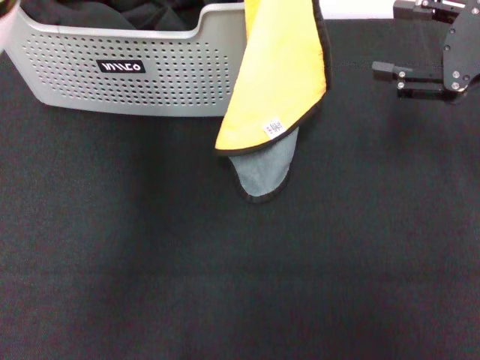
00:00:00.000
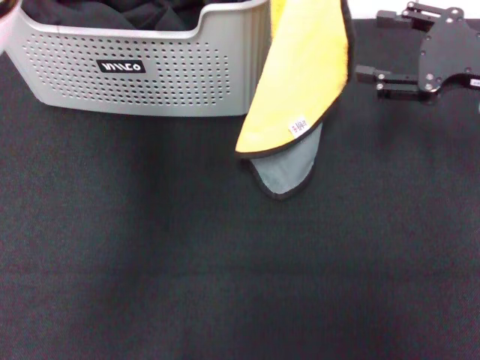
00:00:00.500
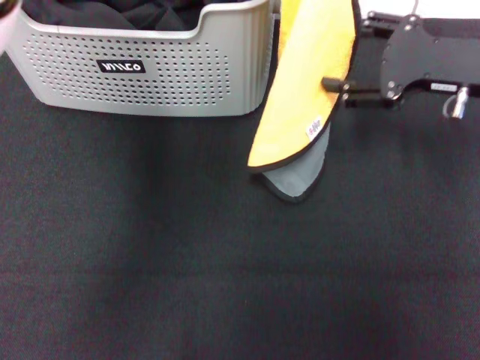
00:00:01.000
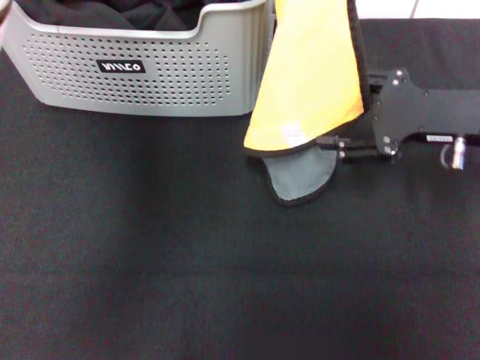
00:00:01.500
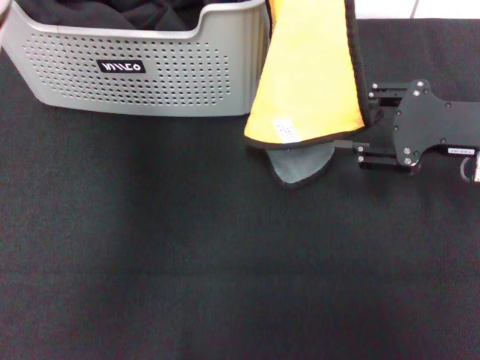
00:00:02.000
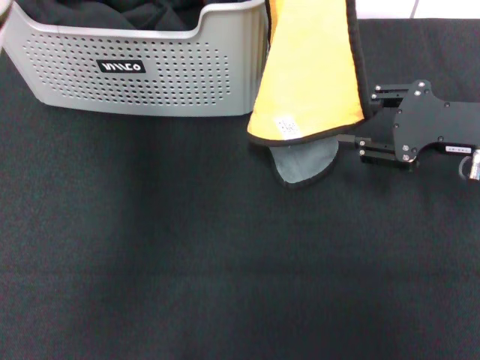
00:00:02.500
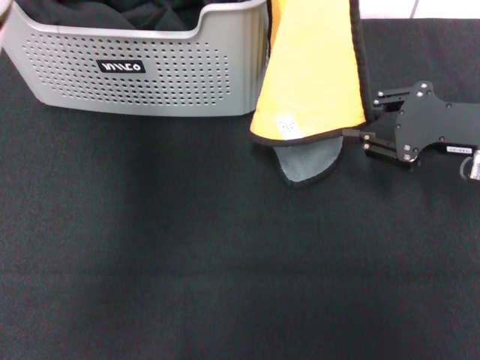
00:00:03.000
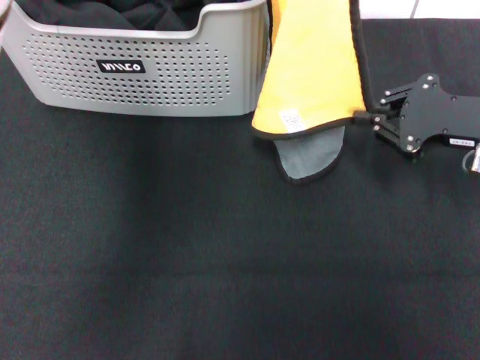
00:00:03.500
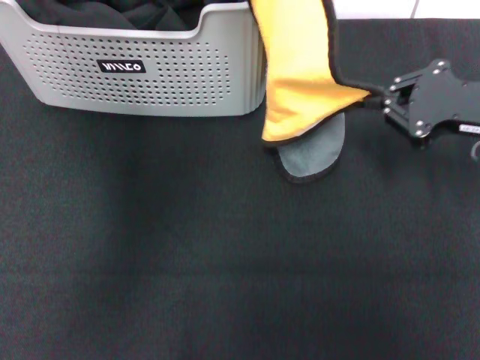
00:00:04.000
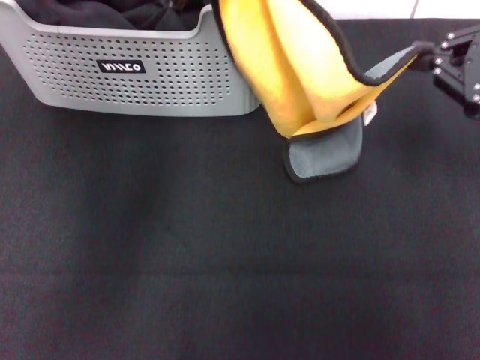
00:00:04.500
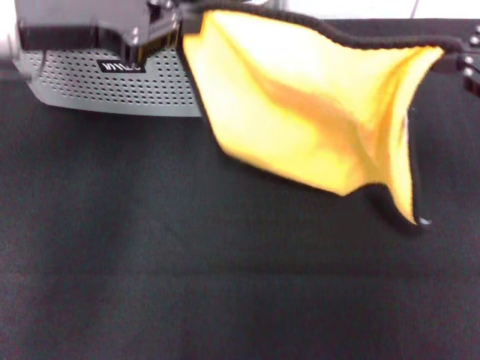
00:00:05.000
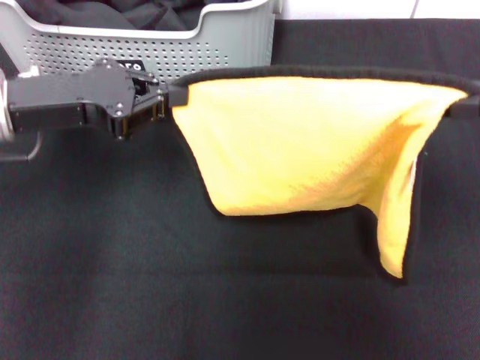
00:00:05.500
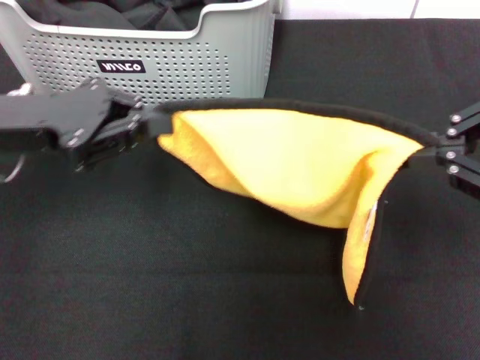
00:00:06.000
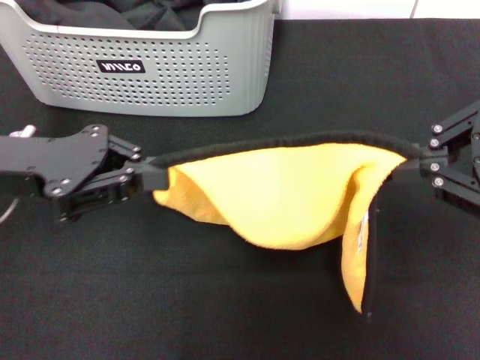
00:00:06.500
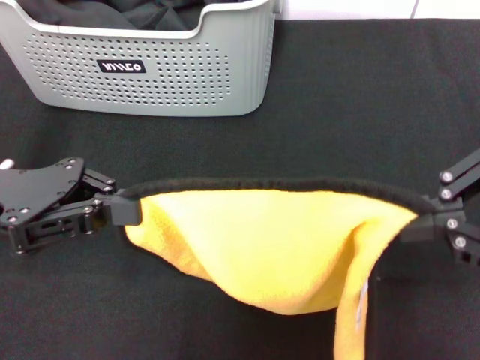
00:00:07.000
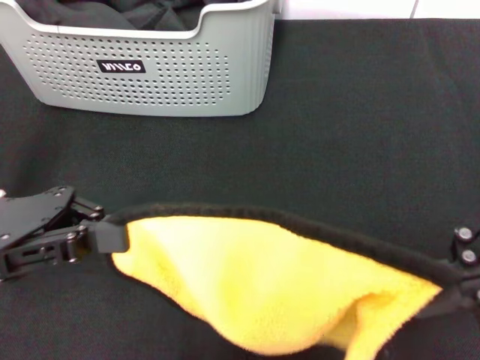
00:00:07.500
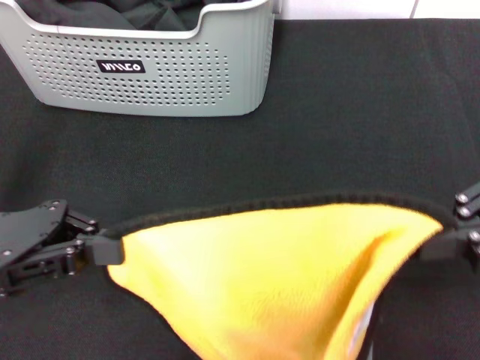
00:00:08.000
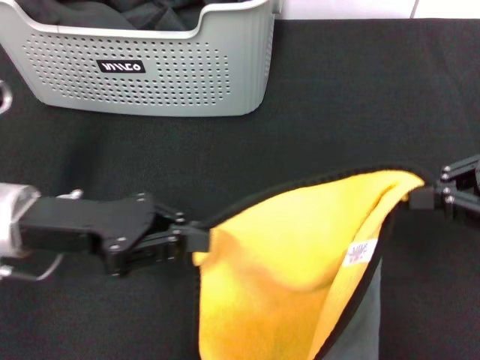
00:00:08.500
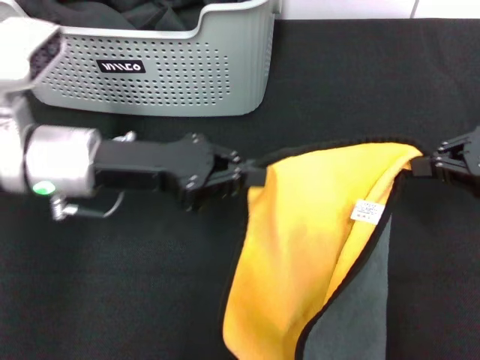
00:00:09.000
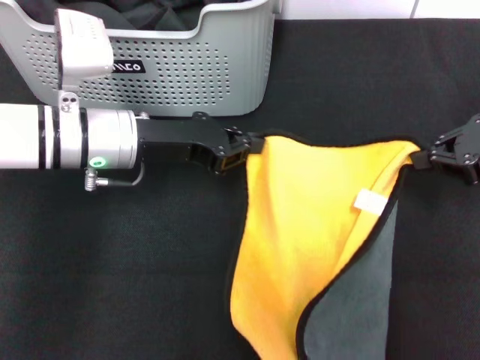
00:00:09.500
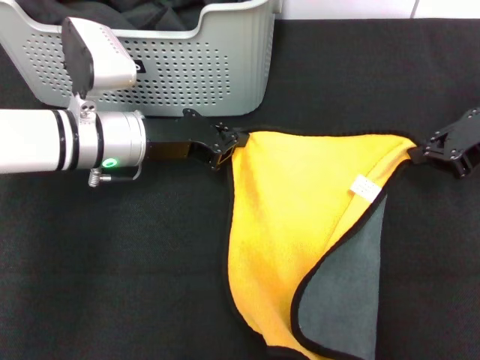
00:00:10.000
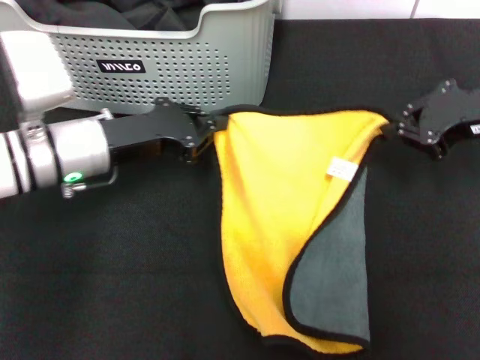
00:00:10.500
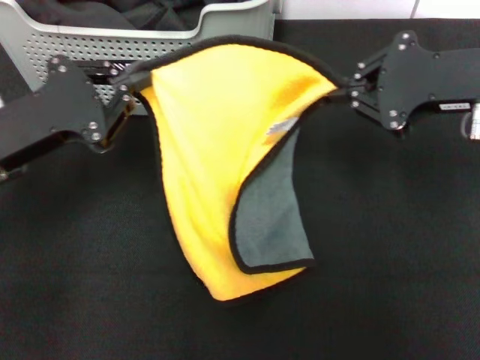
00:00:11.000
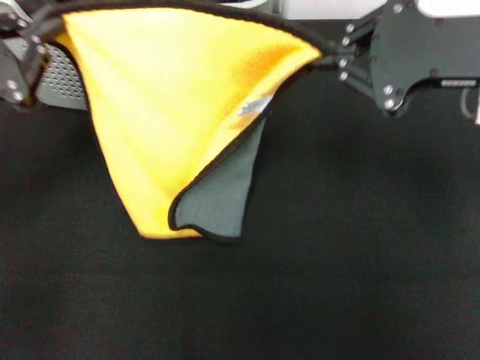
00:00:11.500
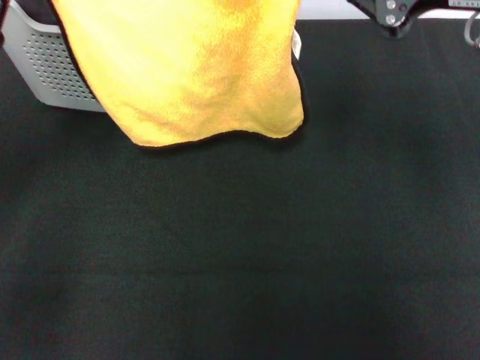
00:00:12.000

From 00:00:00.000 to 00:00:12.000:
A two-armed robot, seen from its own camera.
Task of the whole recording: pick up the towel from the storage box and lay it flat on the black tablecloth.
Step, from 00:00:00.000 to 00:00:03.500: Spread the towel flat with the left gripper.
From 00:00:00.000 to 00:00:02.000: The right gripper moves downward, some 5 cm.
From 00:00:02.000 to 00:00:04.000: The right gripper closes up.
From 00:00:04.000 to 00:00:06.000: The left gripper shifts roughly 25 cm downward, to the left and backward. The right gripper is displaced upward and backward by roughly 15 cm.
From 00:00:06.000 to 00:00:08.000: The left gripper moves backward, some 5 cm.
From 00:00:08.000 to 00:00:10.000: The left gripper heads forward, to the right and downward, covering approximately 20 cm, while the right gripper is displaced forward and downward by roughly 15 cm.
From 00:00:10.000 to 00:00:12.000: The right gripper goes some 15 cm upward and to the left; the left gripper moves to the left, upward and backward, roughly 20 cm.

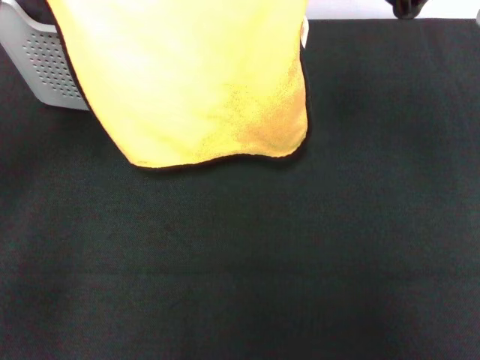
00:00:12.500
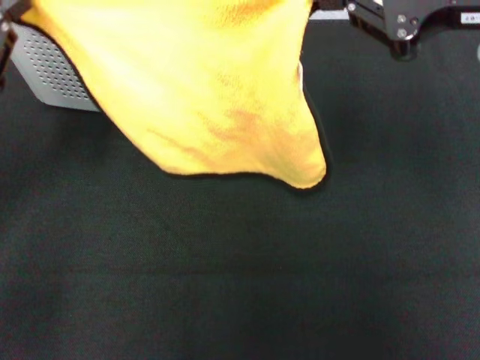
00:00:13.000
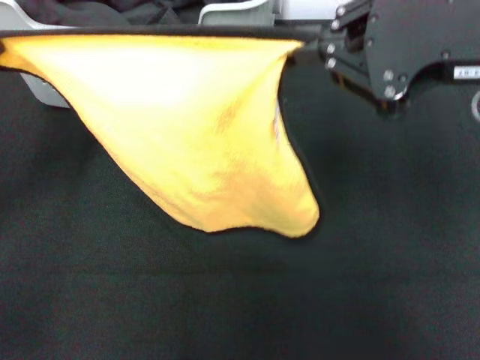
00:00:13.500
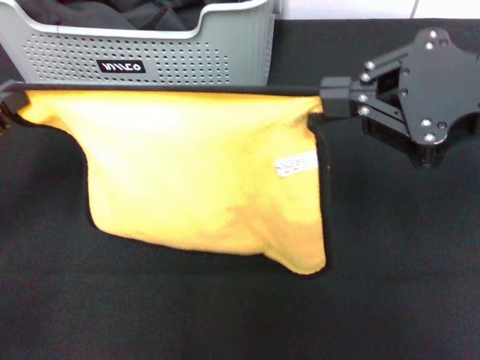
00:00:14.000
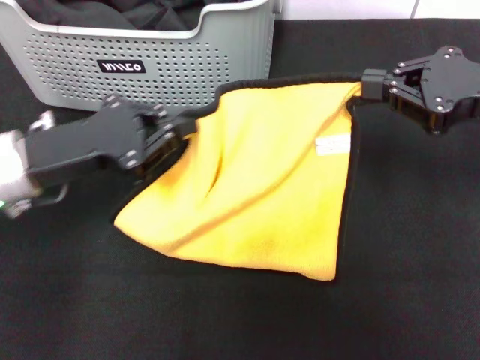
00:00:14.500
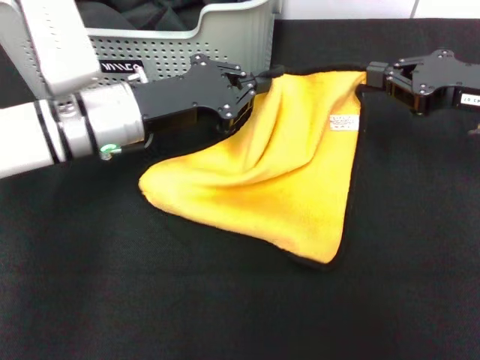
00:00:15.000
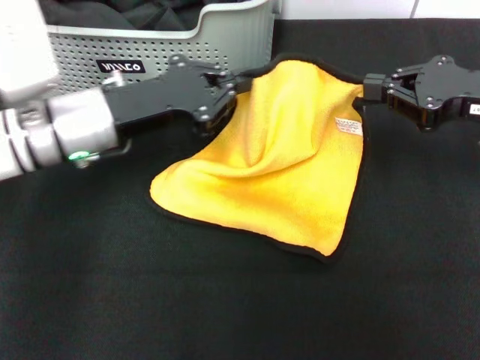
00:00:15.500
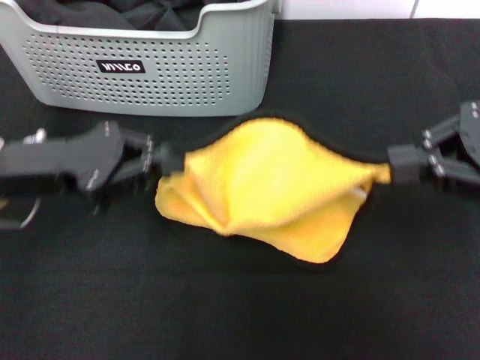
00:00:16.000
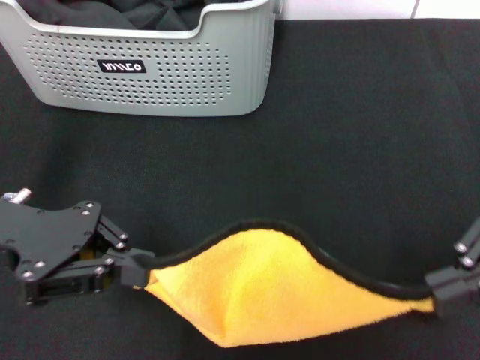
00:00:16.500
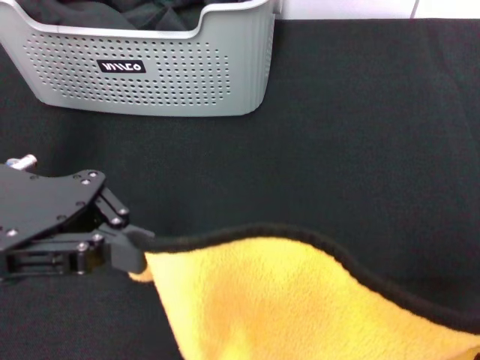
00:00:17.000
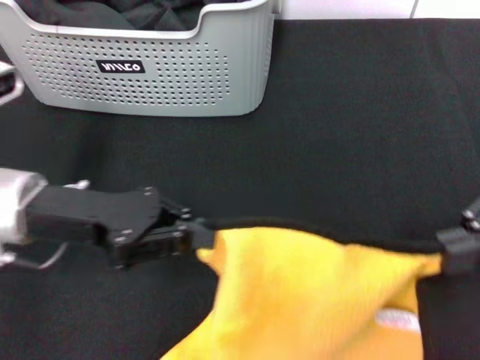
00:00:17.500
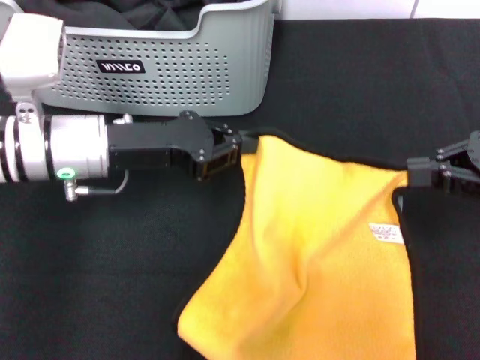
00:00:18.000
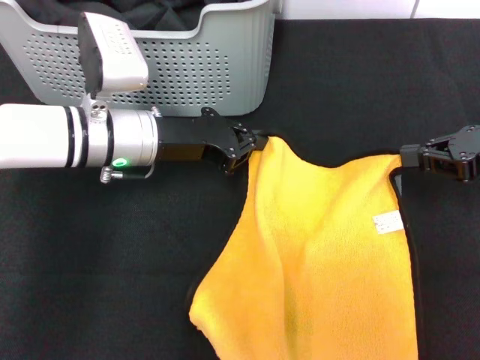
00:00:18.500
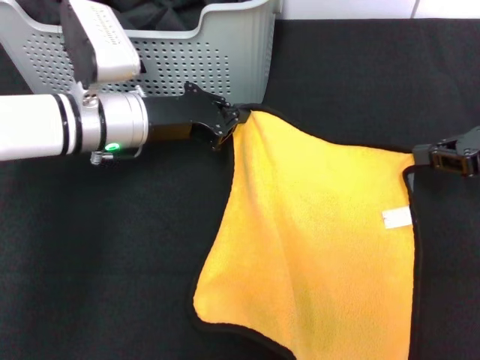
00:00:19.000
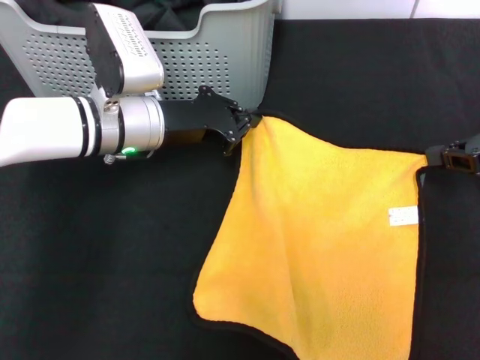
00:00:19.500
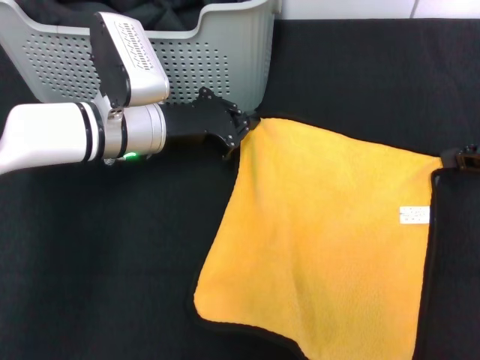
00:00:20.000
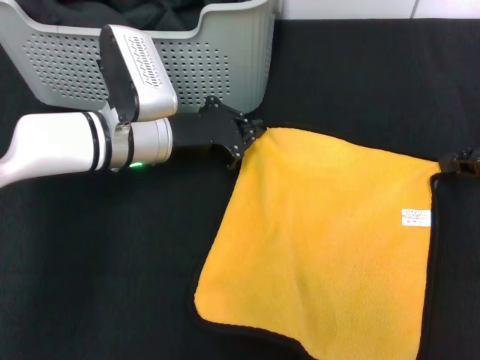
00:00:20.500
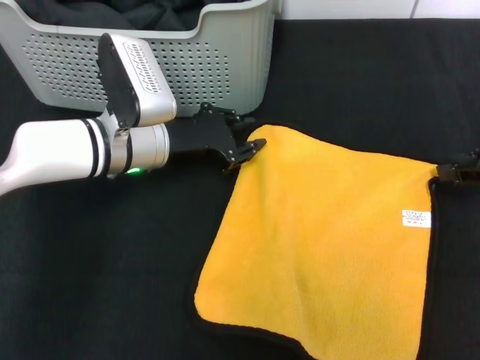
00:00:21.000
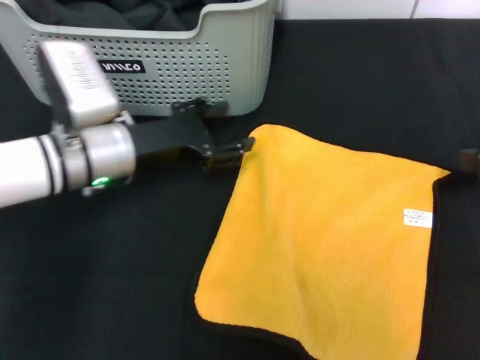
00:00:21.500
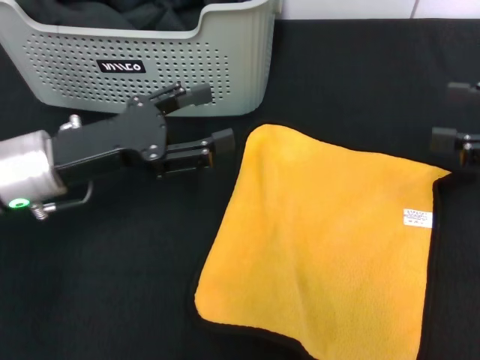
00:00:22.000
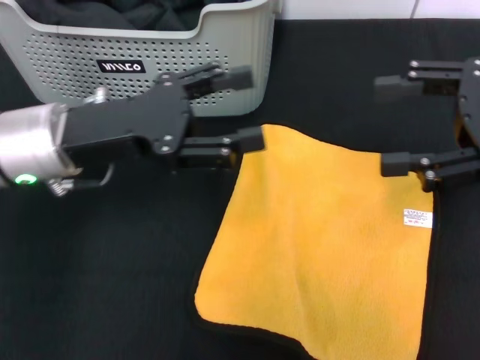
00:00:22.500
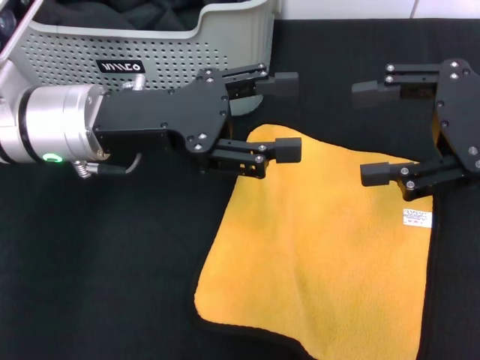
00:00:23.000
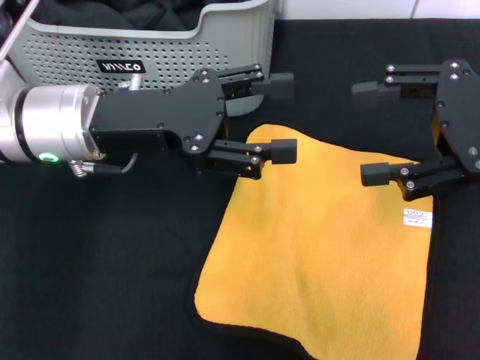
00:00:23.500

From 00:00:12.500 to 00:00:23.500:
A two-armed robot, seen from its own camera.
Task of the whole recording: pick up the towel from the storage box and lay it flat on the black tablecloth.
Step, from 00:00:12.500 to 00:00:20.500: Spread the towel flat with the right gripper.
From 00:00:12.500 to 00:00:14.500: The right gripper goes about 10 cm downward. The left gripper travels to the right and downward by roughly 10 cm.
From 00:00:14.500 to 00:00:16.000: The left gripper travels to the right and back again, some 5 cm each way.
From 00:00:16.000 to 00:00:18.000: The left gripper goes some 5 cm to the right. Meanwhile the right gripper goes roughly 5 cm downward.
From 00:00:18.000 to 00:00:20.000: The right gripper goes about 5 cm forward. Meanwhile the left gripper ends up approximately 5 cm from where it was.
From 00:00:20.000 to 00:00:21.500: The left gripper opens its fingers, while the right gripper shifts by roughly 5 cm, and opens.
From 00:00:21.500 to 00:00:23.500: The left gripper shifts about 10 cm upward, and opens, while the right gripper heads to the left and upward, covering roughly 10 cm, and opens.
